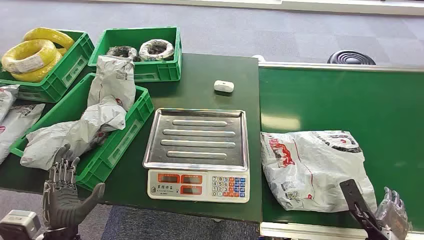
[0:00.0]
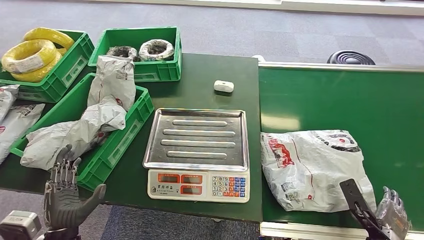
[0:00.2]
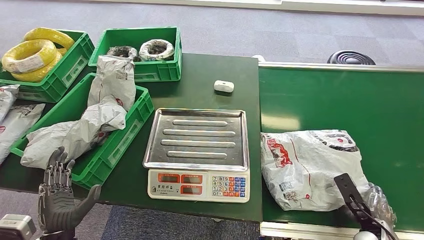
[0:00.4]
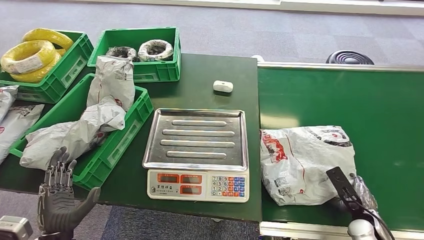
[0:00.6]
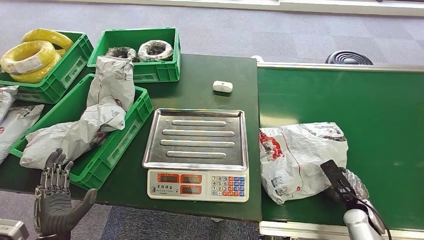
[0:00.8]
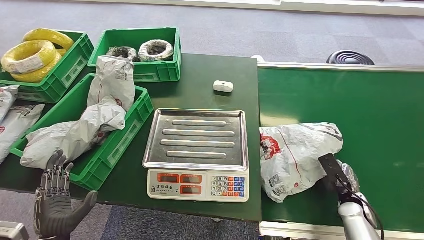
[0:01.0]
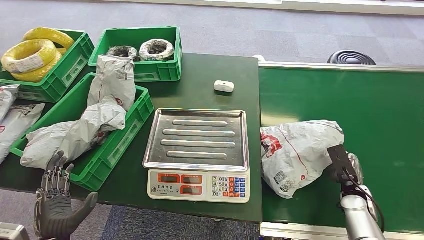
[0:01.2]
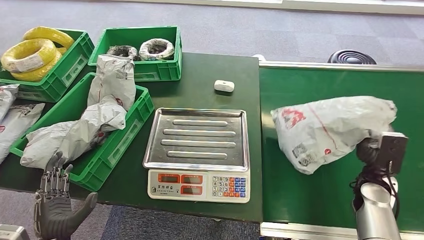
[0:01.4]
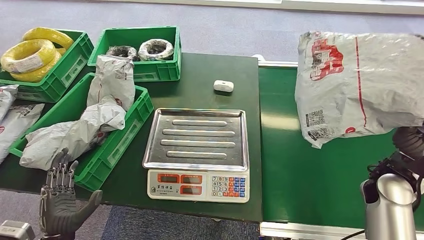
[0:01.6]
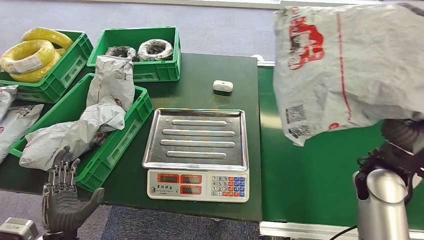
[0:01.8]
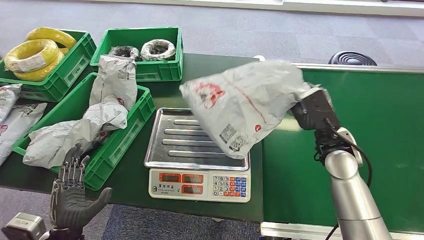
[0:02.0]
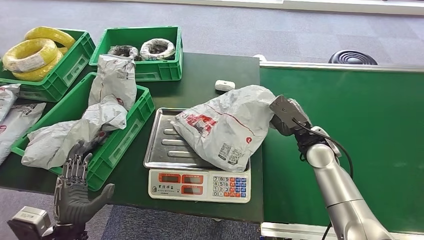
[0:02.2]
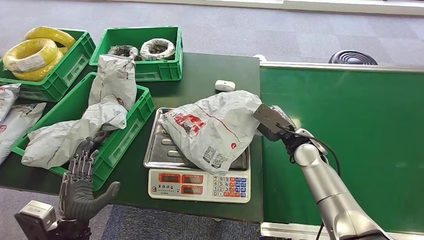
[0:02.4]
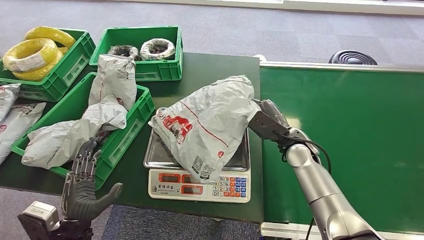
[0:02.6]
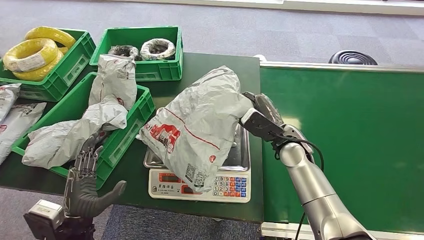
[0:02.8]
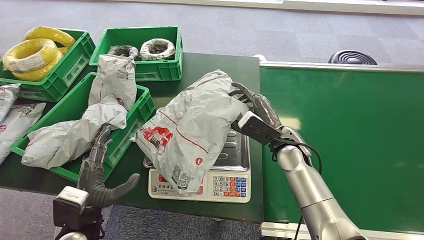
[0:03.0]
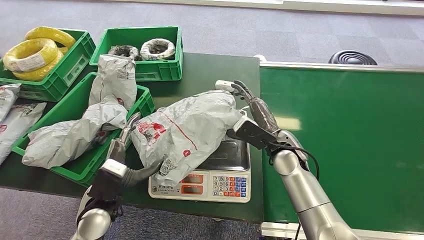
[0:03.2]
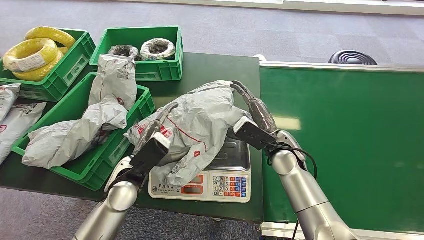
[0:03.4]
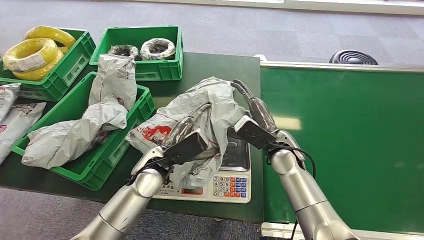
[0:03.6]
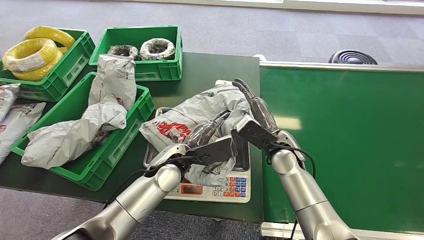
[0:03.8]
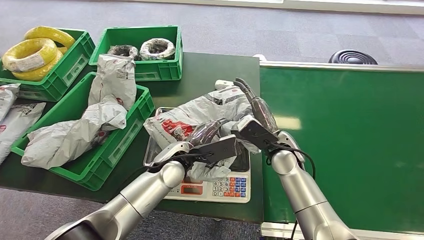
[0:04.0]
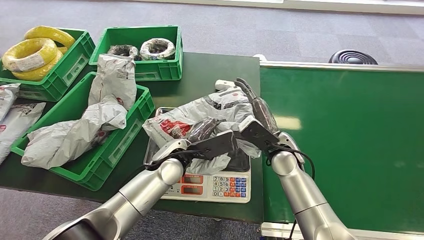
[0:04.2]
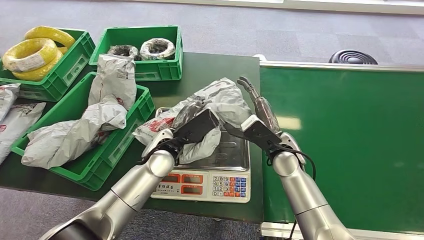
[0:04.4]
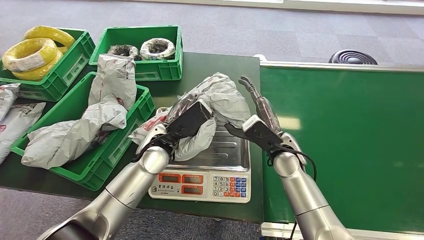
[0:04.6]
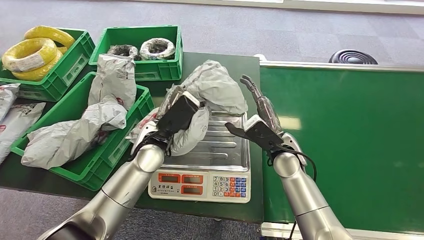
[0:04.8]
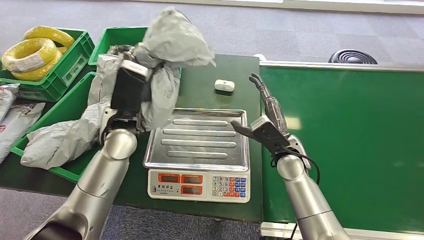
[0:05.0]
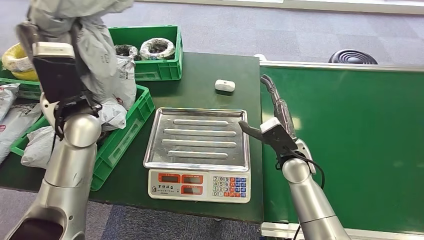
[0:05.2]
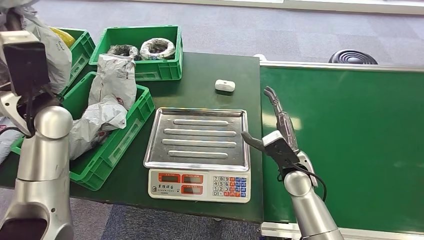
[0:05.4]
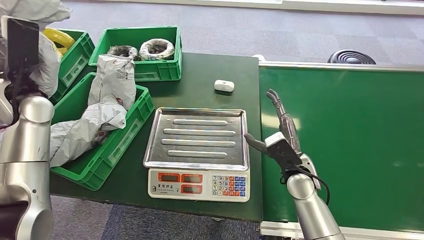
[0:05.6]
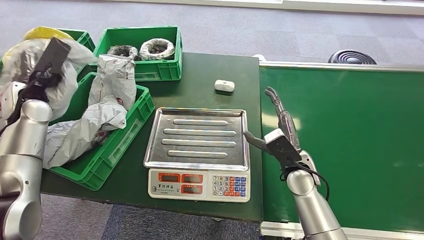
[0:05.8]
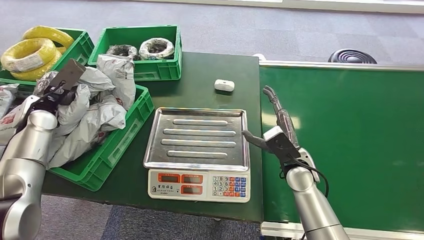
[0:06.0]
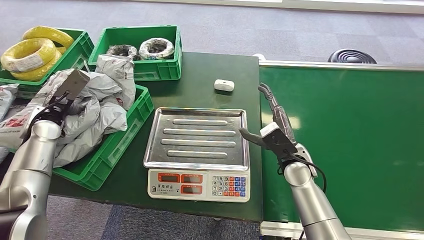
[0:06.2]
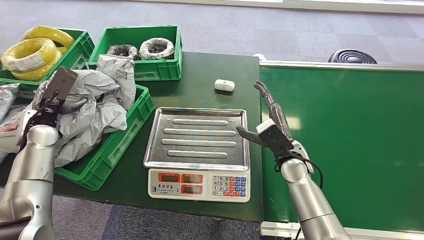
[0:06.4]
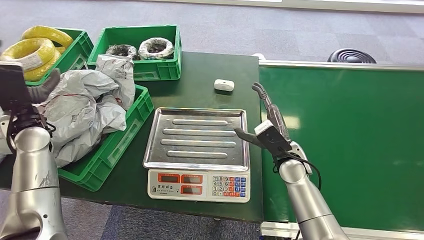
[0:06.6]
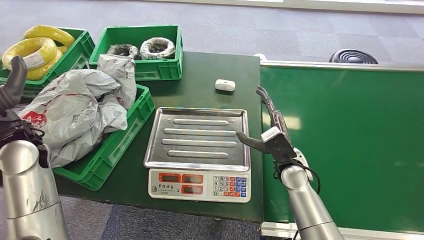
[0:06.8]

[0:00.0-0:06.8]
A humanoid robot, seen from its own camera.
Step, 0:00.0 to 0:01.6: Pick up the package from the conveyor belt.
Step, 0:02.0 to 0:03.4: Place the package onto the inbound machine.
Step, 0:03.8 to 0:05.4: Pick up the package from the inbound machine.
Step, 0:05.6 to 0:06.8: Place the package into the parcel locker.
0:05.4 to 0:06.8: The left hand goes about 10 cm downward and to the left.

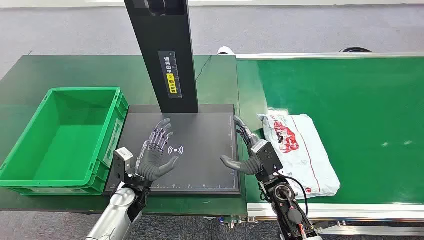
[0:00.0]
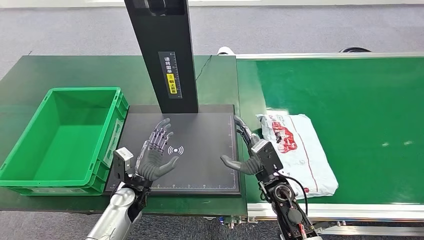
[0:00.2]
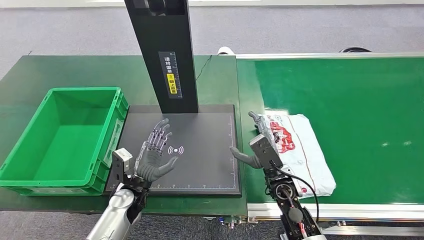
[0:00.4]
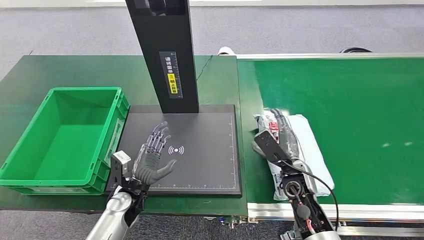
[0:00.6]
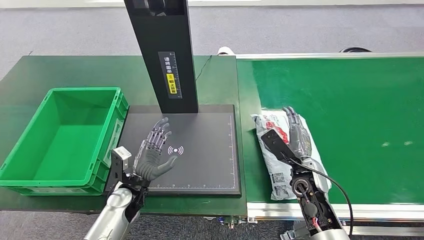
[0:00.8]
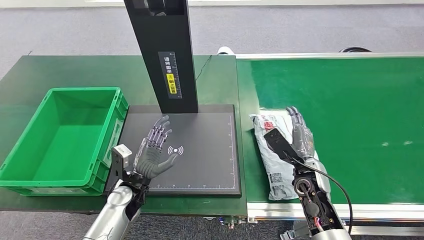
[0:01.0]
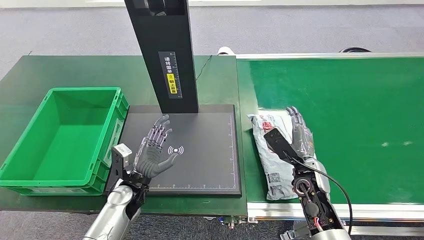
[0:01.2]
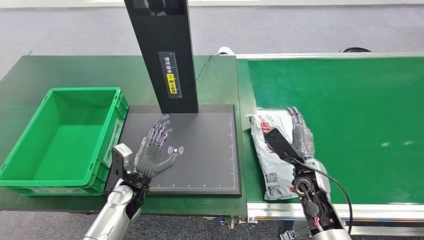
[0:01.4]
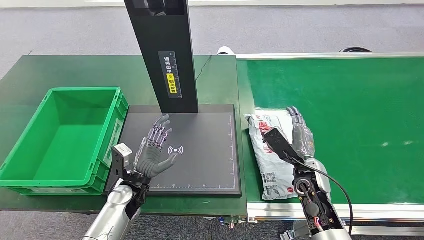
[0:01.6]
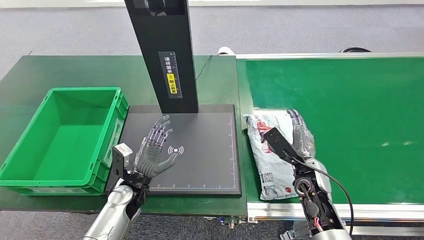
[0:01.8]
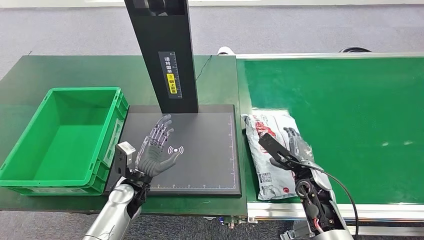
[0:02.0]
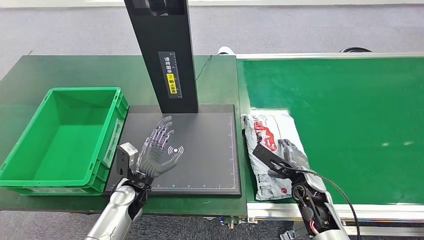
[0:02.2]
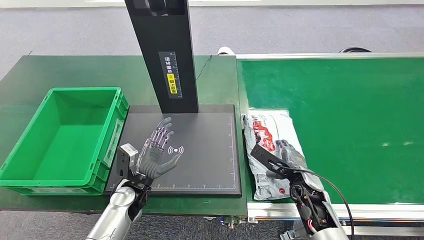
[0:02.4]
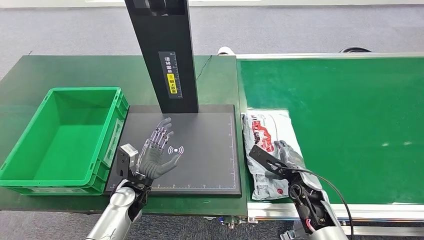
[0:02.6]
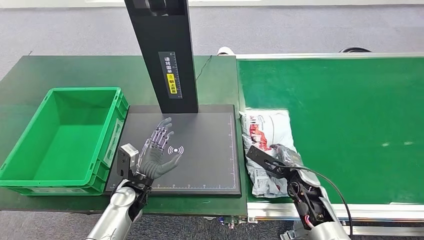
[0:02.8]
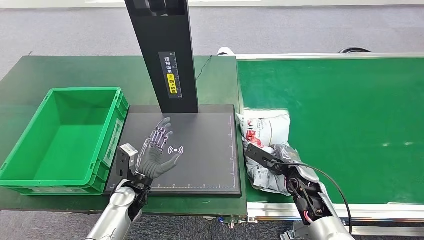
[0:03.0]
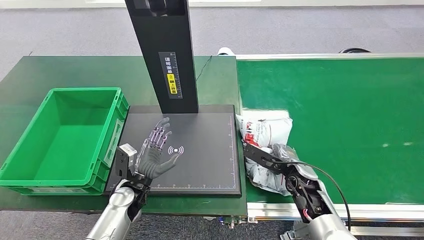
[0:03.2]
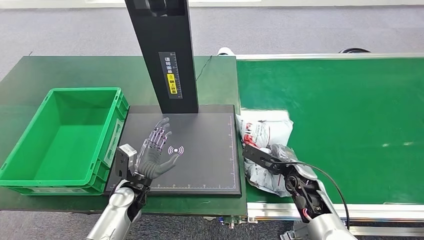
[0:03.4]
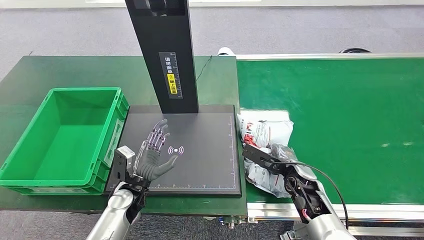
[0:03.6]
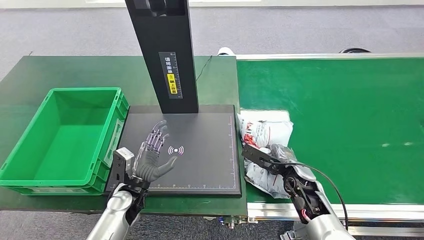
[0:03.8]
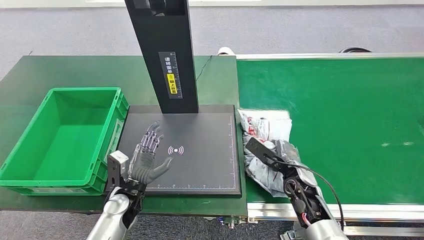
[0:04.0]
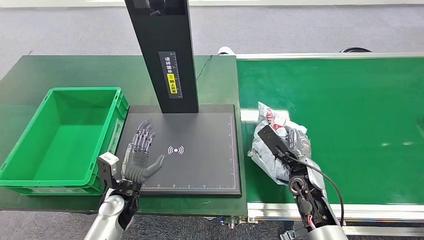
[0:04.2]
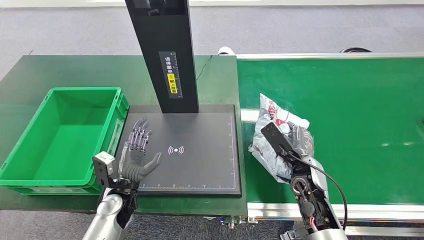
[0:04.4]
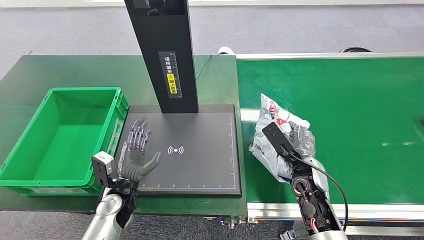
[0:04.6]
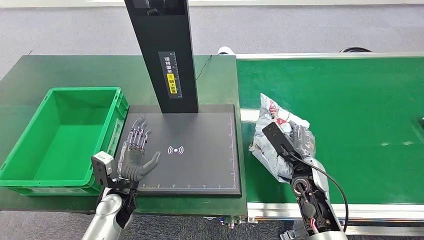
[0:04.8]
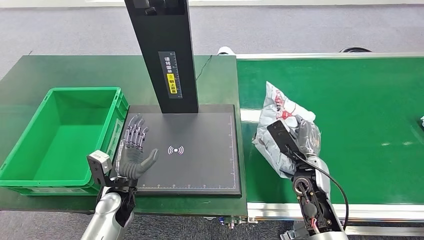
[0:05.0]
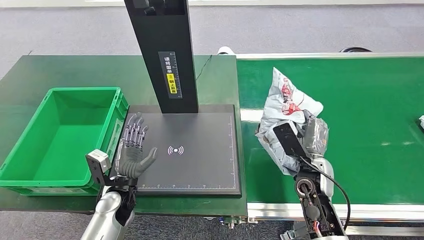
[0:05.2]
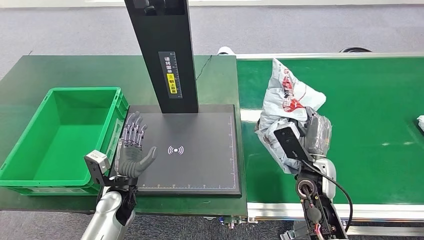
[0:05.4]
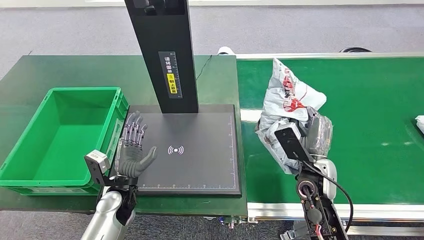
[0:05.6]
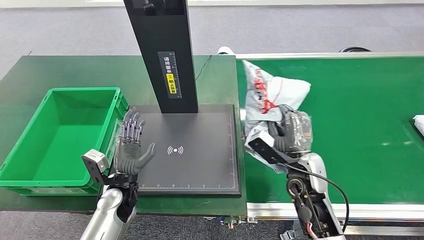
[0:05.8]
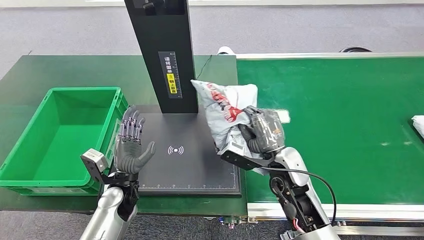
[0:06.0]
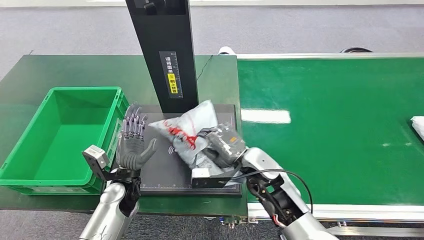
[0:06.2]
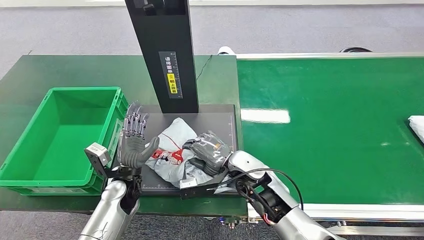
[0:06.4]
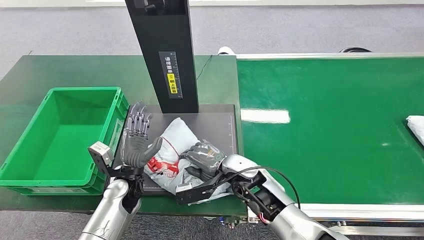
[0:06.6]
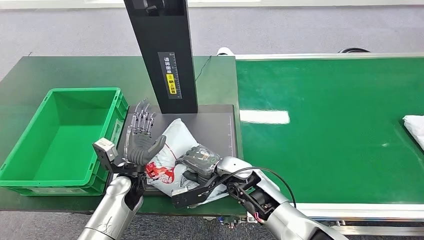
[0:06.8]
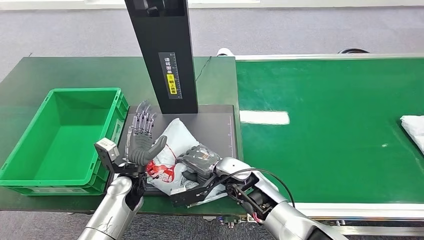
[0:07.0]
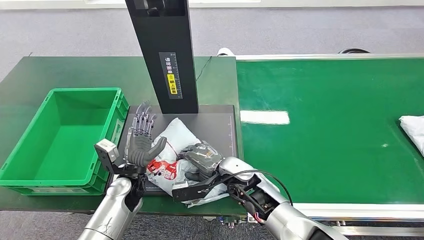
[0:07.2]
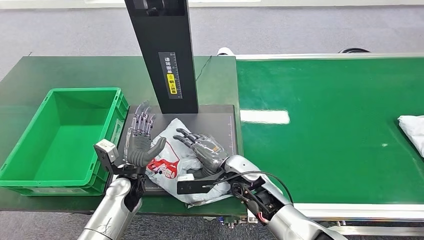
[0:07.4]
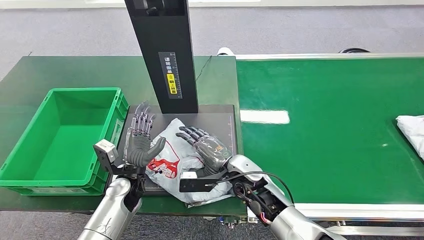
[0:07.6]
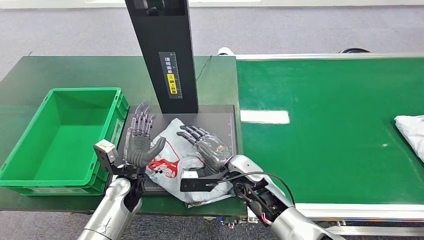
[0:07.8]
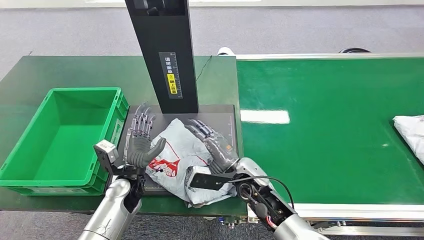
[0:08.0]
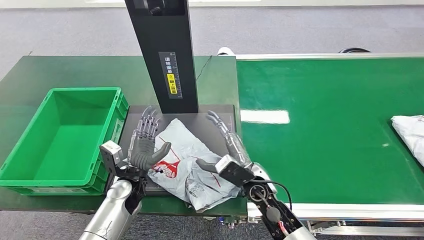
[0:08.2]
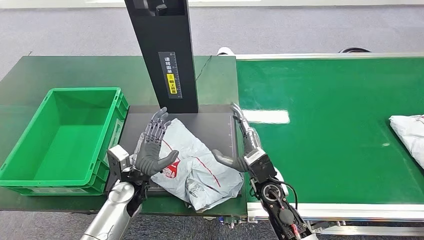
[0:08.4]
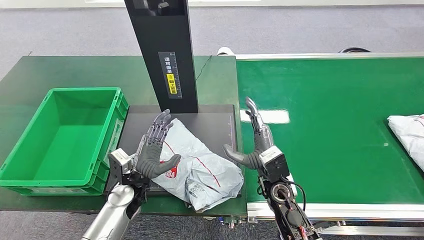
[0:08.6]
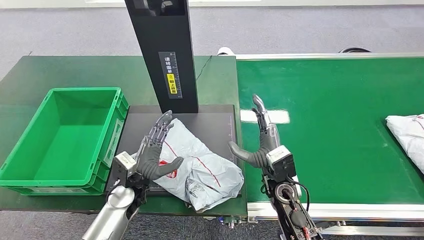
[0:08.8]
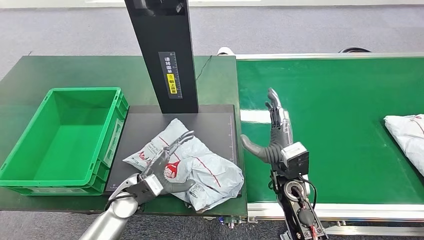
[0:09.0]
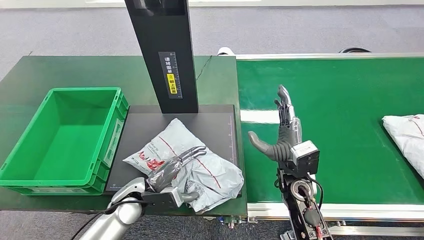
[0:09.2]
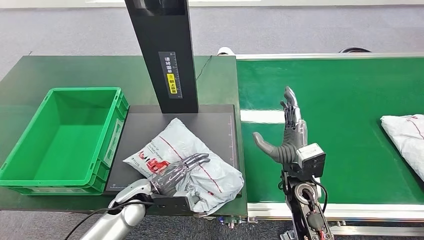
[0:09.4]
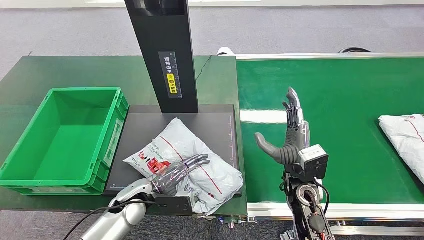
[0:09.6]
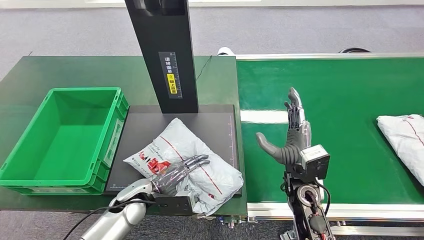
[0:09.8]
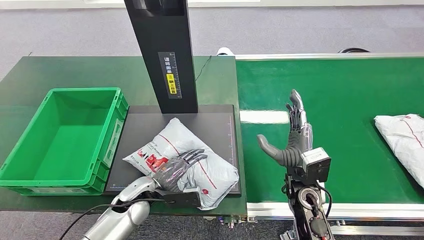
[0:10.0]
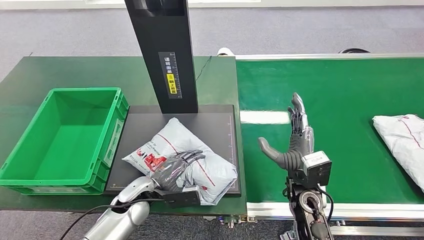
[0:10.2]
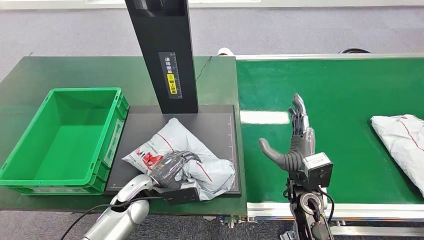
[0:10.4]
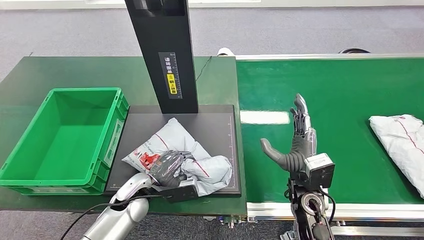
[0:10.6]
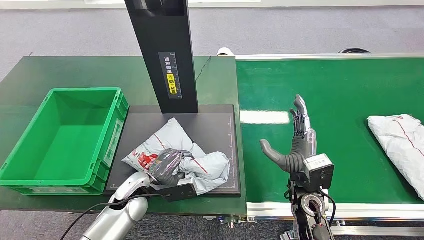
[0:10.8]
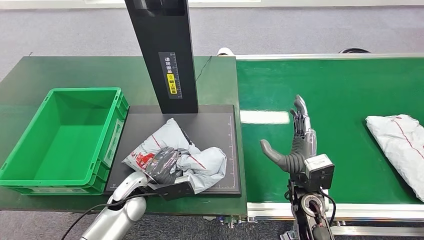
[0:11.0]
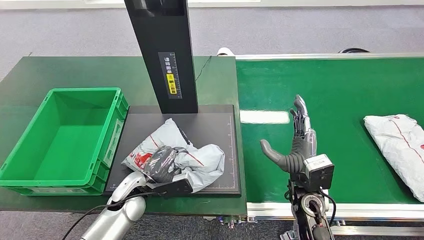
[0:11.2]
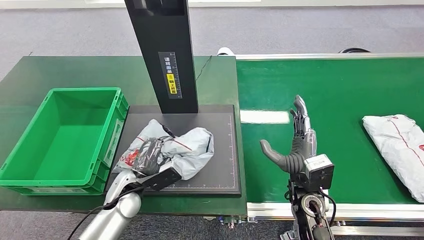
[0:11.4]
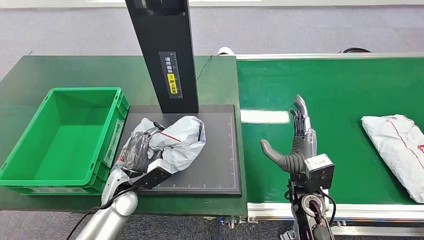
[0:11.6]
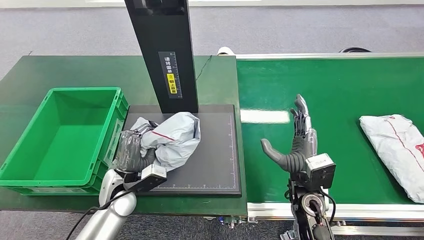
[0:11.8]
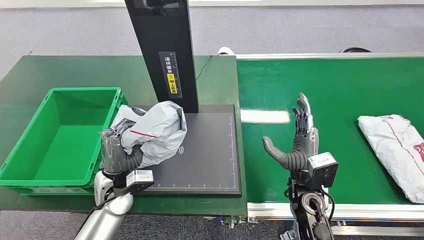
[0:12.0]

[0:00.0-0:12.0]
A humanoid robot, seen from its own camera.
Step, 0:00.0 to 0:04.6: Pick up the package from the conveyor belt.
Step, 0:05.0 to 0:08.6: Place the package onto the inbound machine.
0:04.4 to 0:06.0: The right hand travels to the left by approximately 5 cm.
0:07.6 to 0:09.0: The right hand is displaced to the right by about 10 cm.
0:10.4 to 0:12.0: The left hand travels upward by approximately 5 cm.
